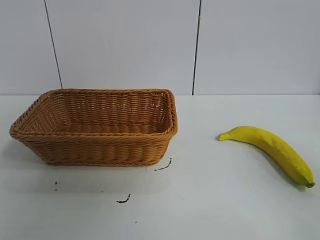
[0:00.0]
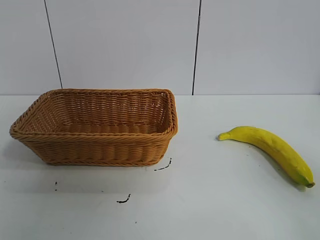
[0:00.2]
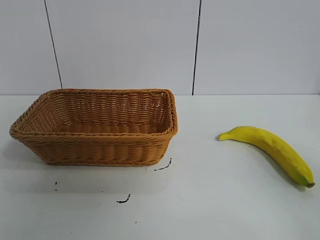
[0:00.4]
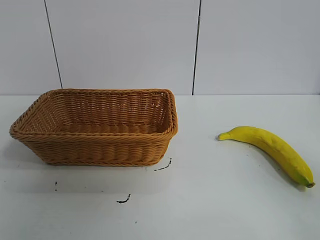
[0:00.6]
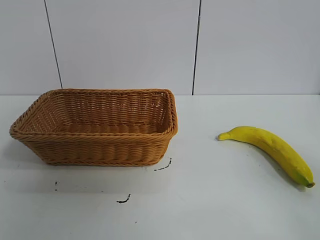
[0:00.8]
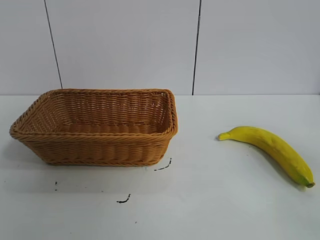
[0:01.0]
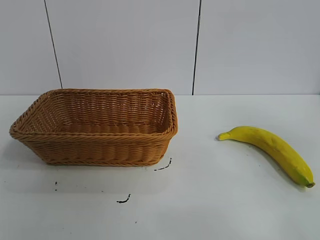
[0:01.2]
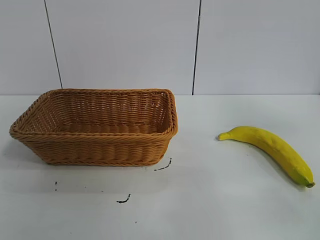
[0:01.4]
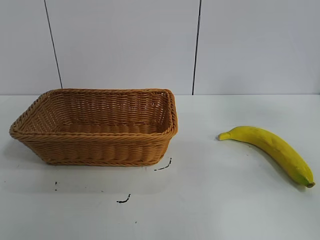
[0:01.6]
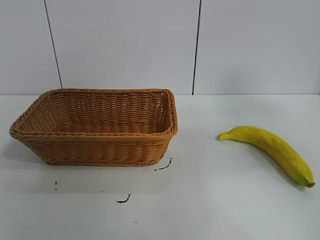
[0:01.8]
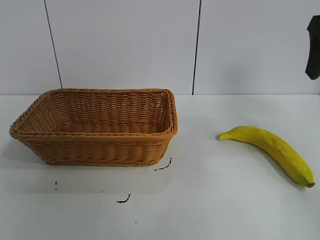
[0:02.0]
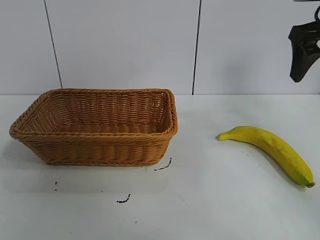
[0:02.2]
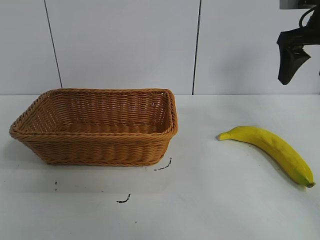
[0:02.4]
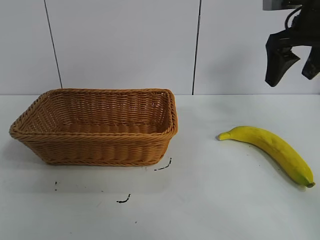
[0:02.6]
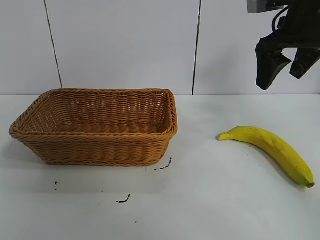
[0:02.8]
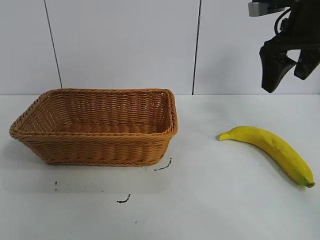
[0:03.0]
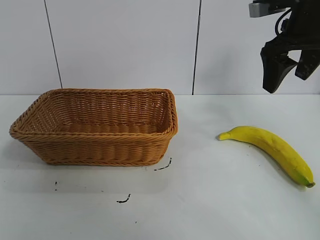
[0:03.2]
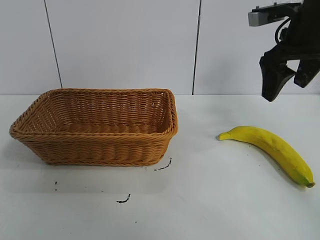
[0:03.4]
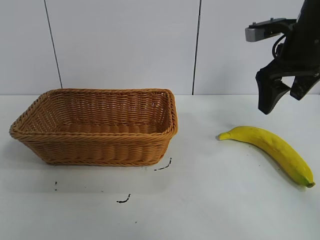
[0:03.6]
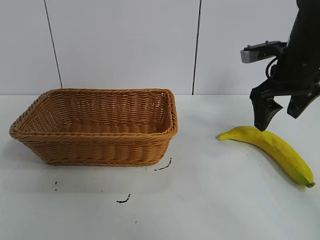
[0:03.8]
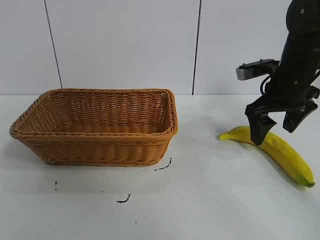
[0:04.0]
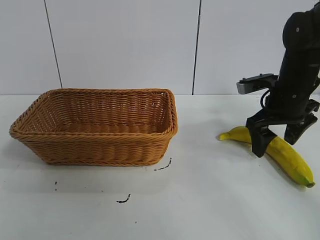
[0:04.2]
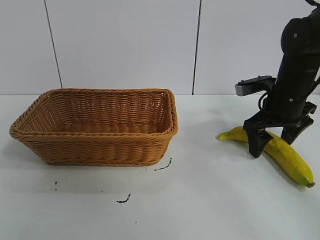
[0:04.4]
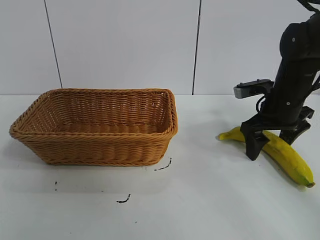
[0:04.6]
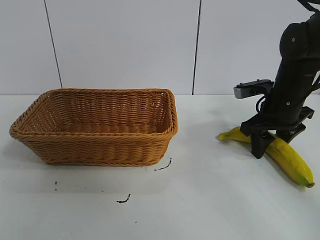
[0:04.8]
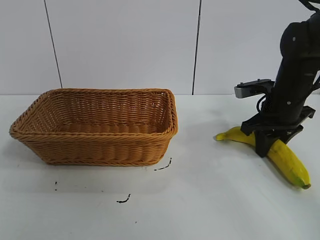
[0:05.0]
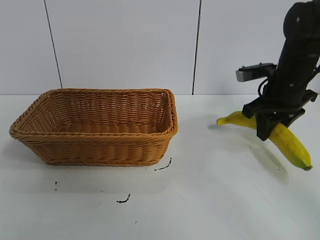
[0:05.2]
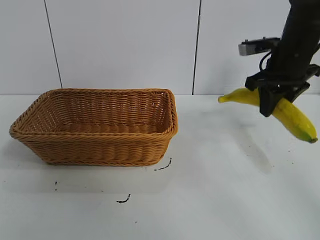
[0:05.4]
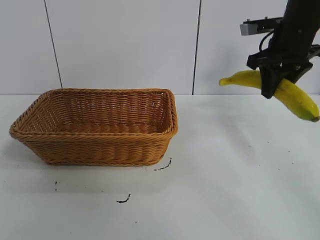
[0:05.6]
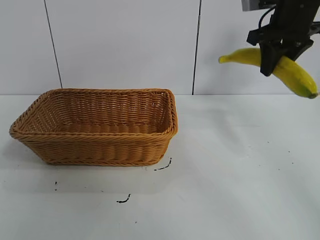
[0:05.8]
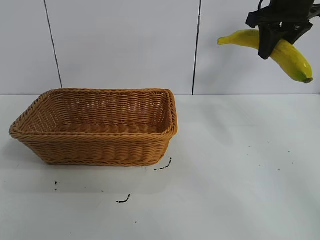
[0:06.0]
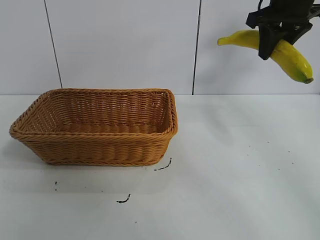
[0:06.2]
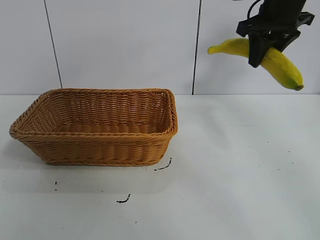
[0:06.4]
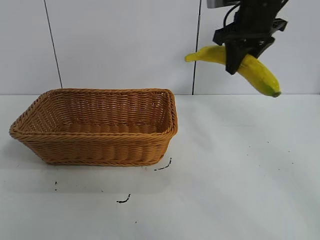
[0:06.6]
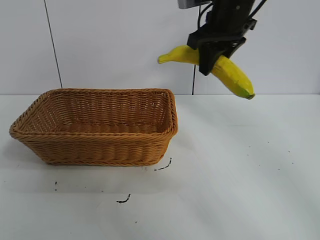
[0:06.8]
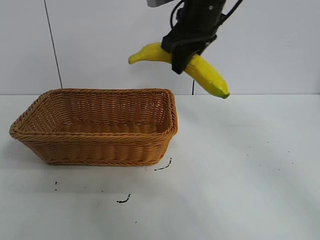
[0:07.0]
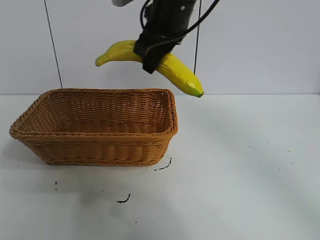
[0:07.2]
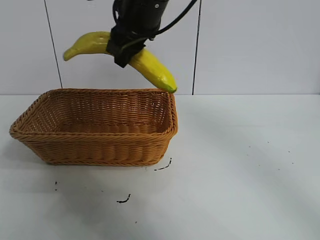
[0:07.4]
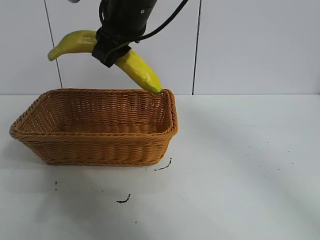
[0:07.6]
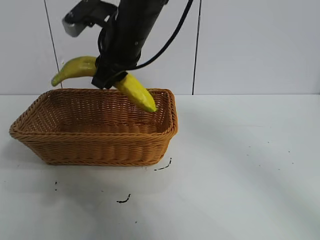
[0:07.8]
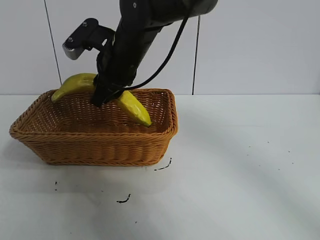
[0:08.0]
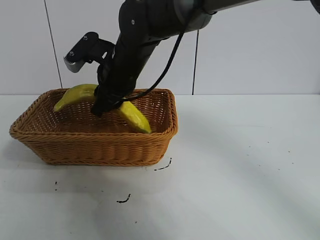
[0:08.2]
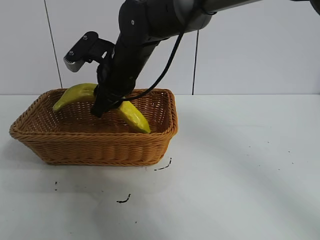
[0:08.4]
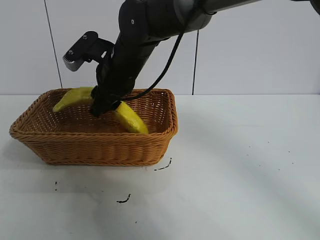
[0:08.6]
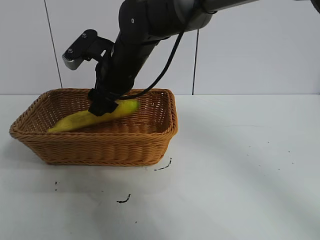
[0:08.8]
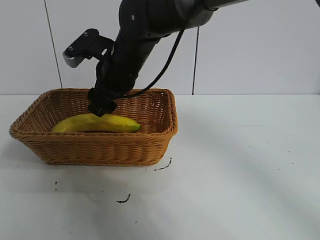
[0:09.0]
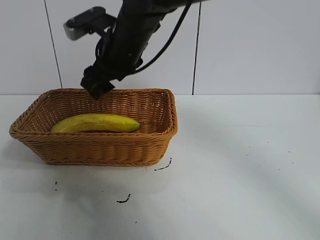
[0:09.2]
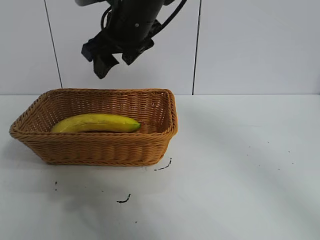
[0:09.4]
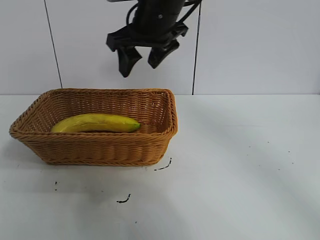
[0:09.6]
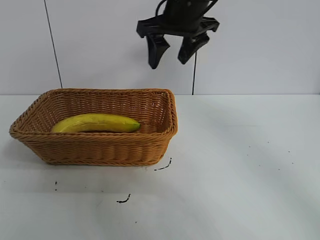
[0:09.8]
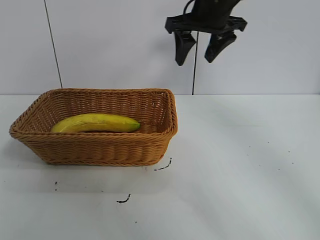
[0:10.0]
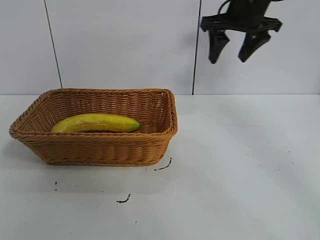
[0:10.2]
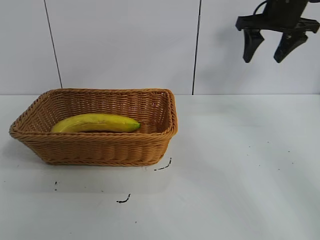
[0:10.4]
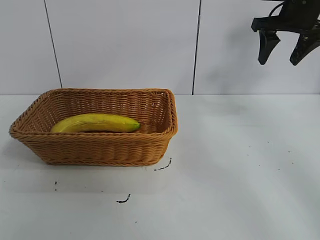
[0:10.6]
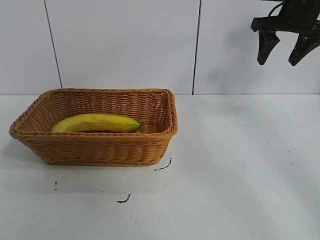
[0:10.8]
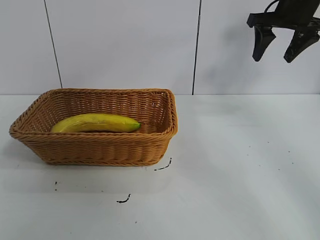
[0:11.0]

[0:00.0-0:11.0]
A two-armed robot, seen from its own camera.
Task of the whole recording: pick up the banana and put it into the basket.
Step, 0:00.8 to 0:04.8: Grasp the banana with right gripper.
Step, 0:05.0 to 0:09.0: Place the banana in the basket with right gripper.
